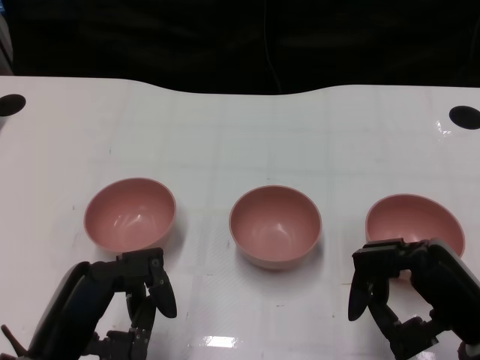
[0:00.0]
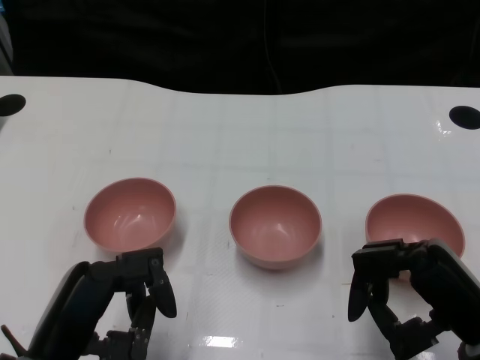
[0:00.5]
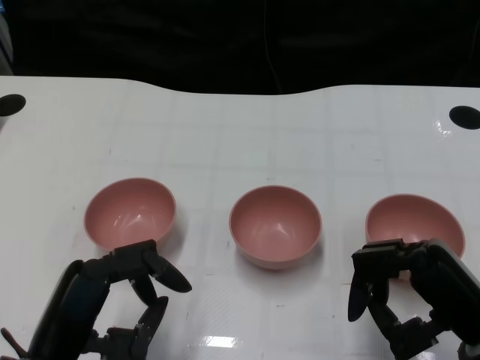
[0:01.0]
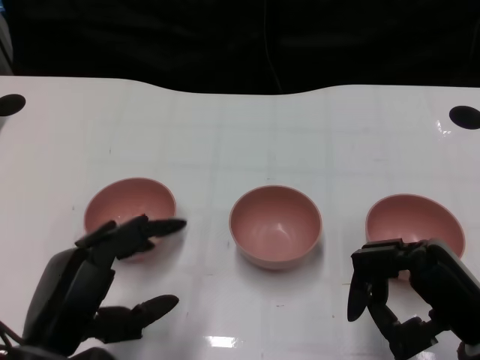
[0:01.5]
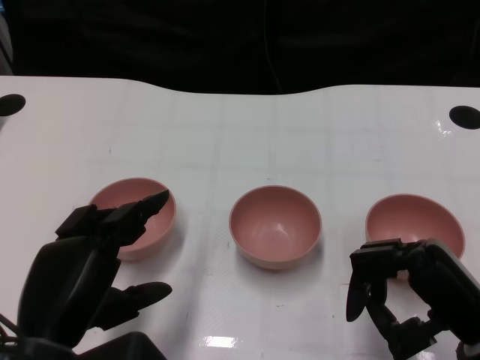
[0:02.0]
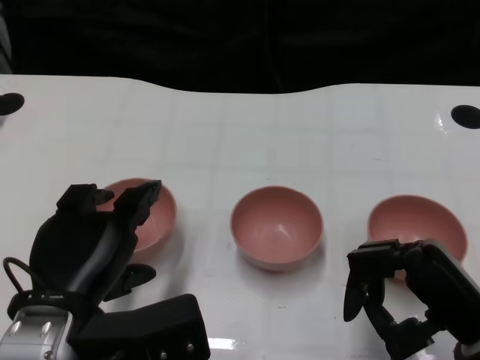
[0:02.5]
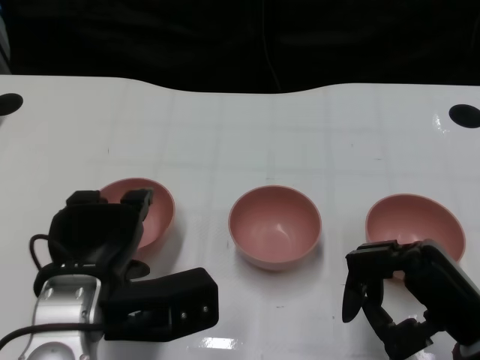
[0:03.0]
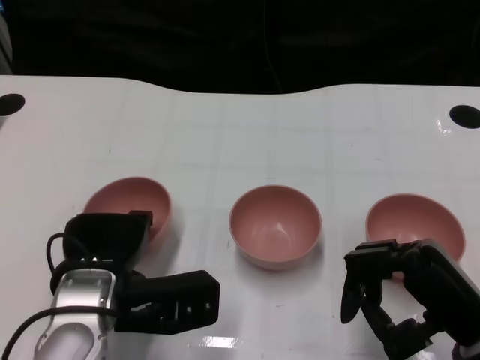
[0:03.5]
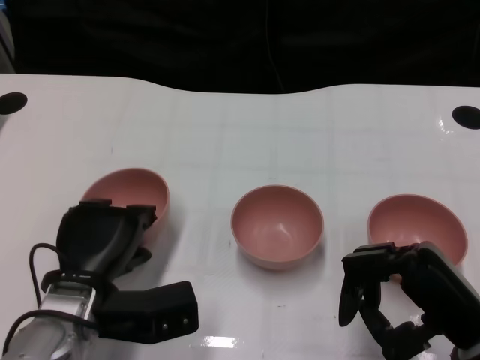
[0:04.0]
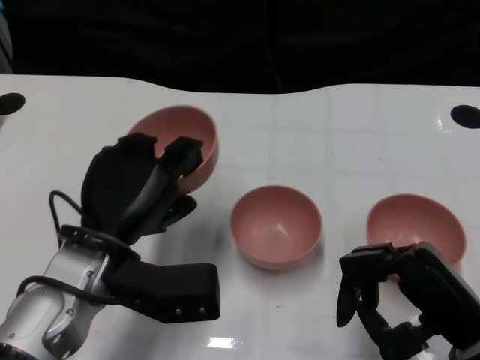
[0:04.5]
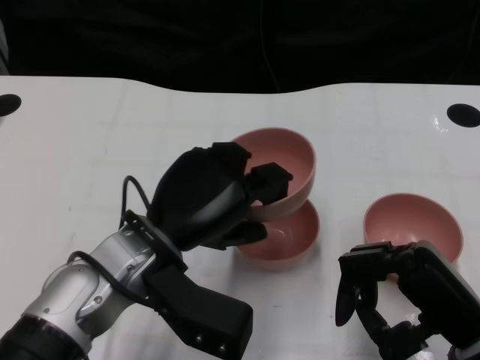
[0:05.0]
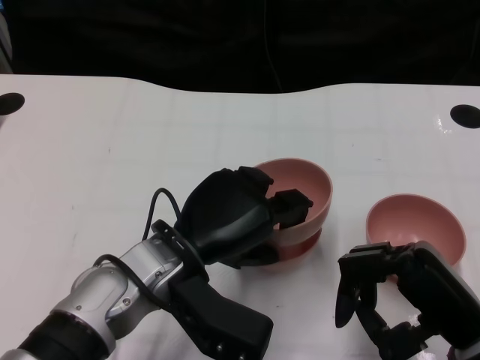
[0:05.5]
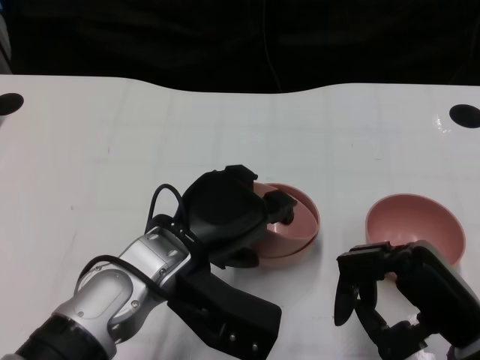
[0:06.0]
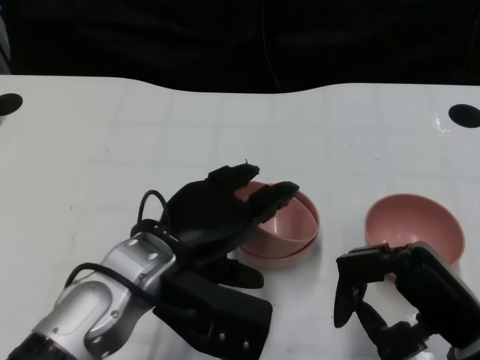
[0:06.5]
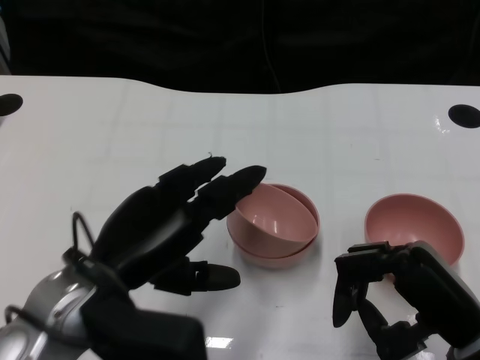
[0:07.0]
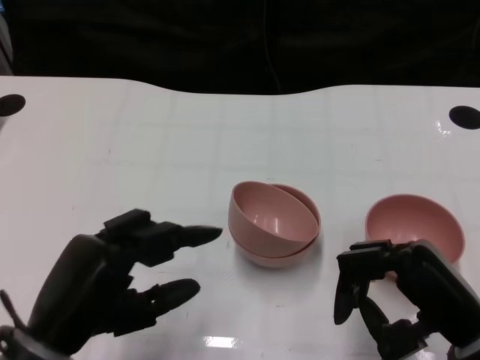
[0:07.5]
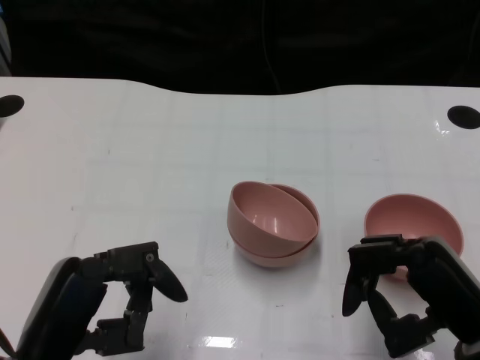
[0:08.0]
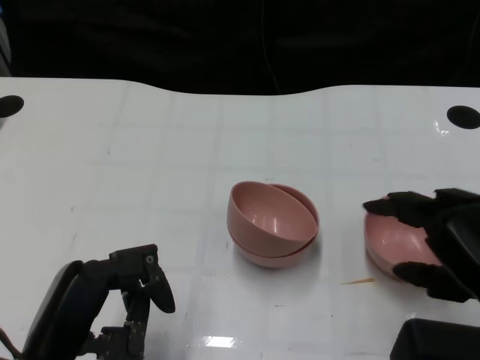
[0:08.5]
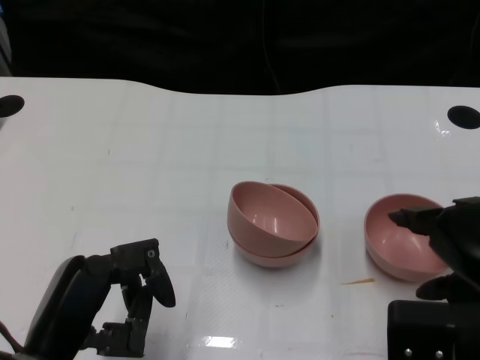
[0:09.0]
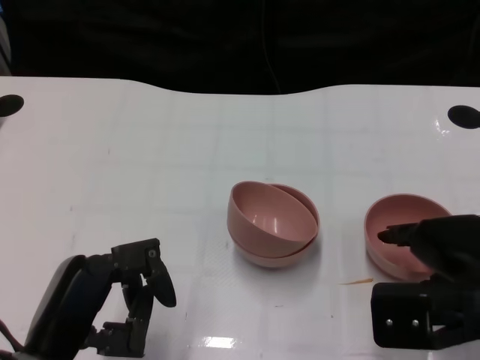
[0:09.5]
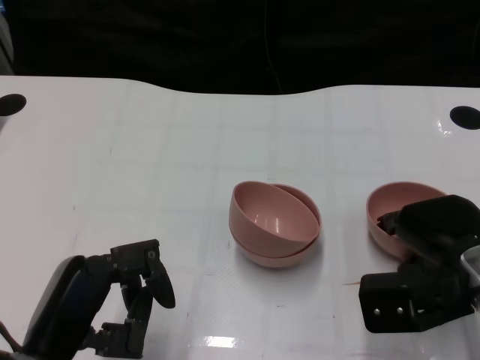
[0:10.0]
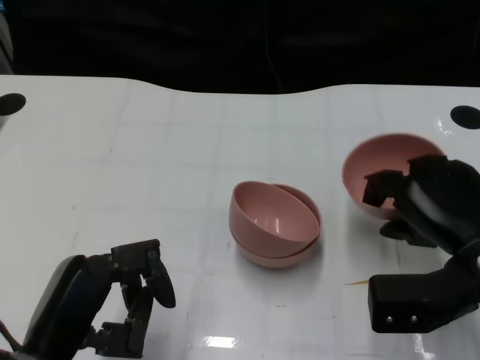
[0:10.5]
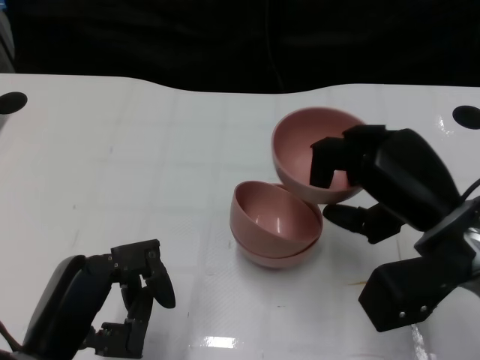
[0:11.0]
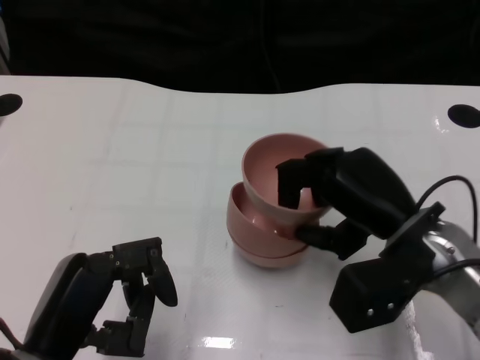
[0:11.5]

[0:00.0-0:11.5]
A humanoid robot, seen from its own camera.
Task of the whole recording: Pick up the bowl on one side of the table and place it on top of the middle bowl, then pick up the bowl on the other side of the table and place it on top of the middle bowls.
Step, 0:01.0 to 0:04.0: Grasp the bowl on the left with the left gripper.
Step, 0:04.5 to 0:06.5: Place the bowl on the left onto the bowl in the middle with left gripper.
Step, 0:07.0 to 0:10.0: Grasp the bowl on the right with the right gripper.
0:02.0 to 0:04.0: The left hand goes roughly 10 cm forward and downward.
0:04.0 to 0:06.0: The left hand travels to the right and upward by about 10 cm.
0:06.0 to 0:07.5: The left hand heads to the left and backward, covering roughly 15 cm.
0:07.5 to 0:09.5: The right hand shifts by about 5 cm.
0:09.5 to 0:11.5: The right hand heads to the left and forward, covering some 10 cm.

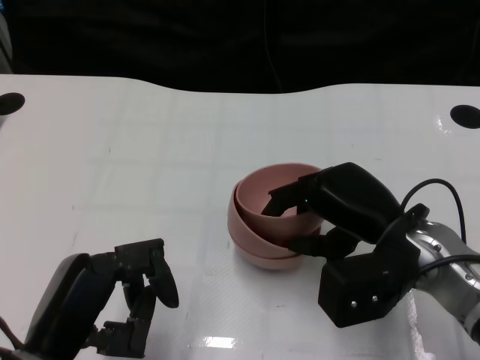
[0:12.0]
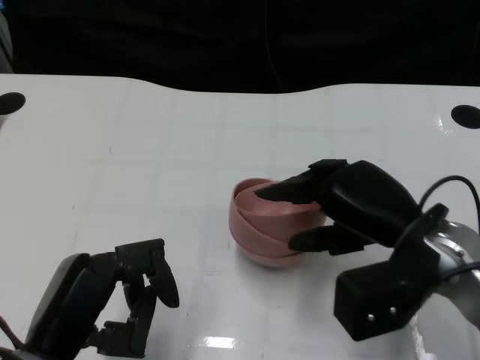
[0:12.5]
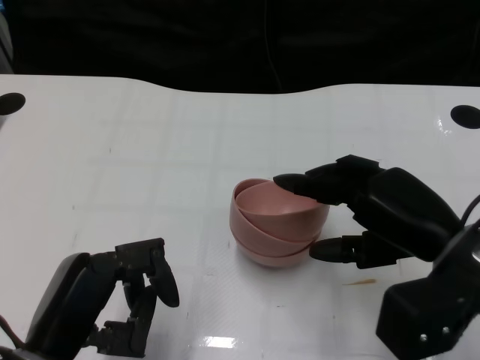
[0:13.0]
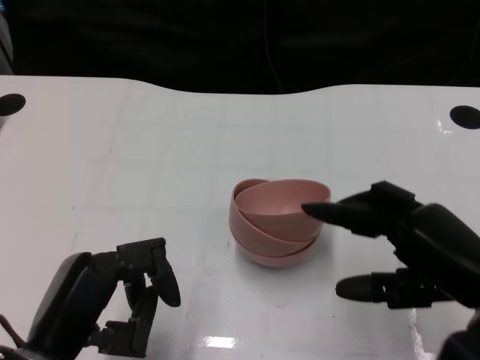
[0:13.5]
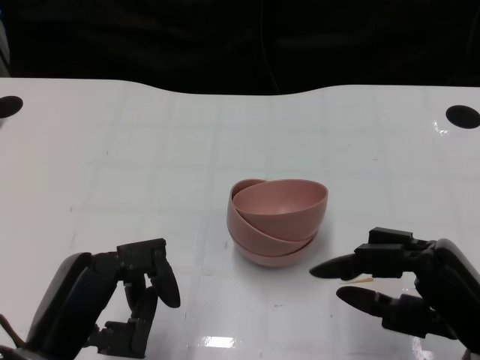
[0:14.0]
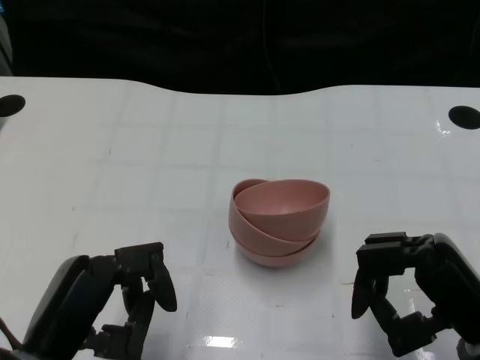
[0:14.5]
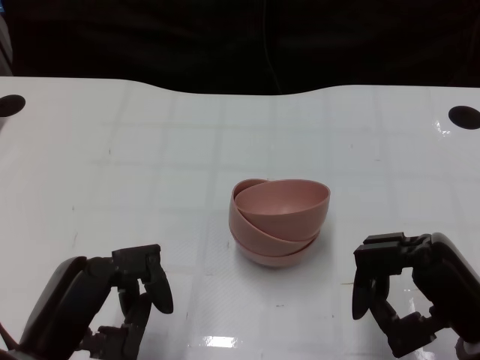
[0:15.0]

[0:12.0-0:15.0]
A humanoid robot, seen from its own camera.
Task of the whole recording: Pick up the bowl on one side of the table and place it on top of the middle bowl, then pick up the bowl on the other side of the table and place it on top of the middle bowls.
0:12.0 to 0:13.5: The right hand is displaced backward and to the right by roughly 10 cm.

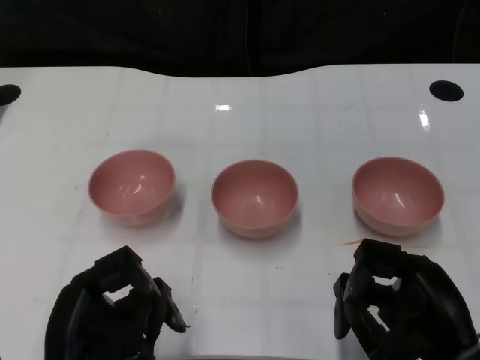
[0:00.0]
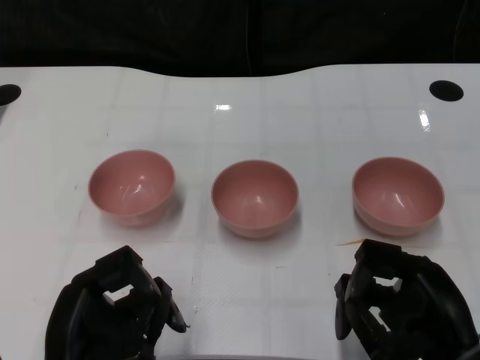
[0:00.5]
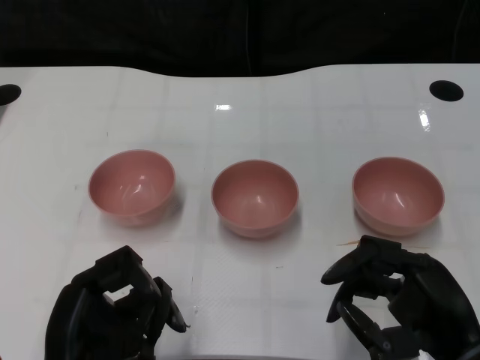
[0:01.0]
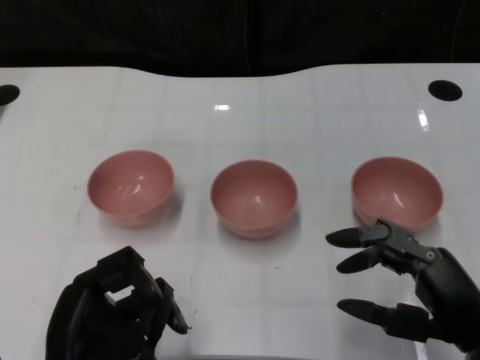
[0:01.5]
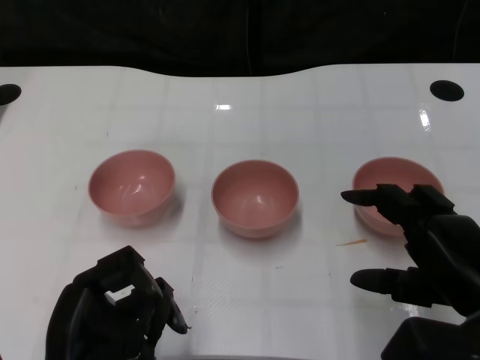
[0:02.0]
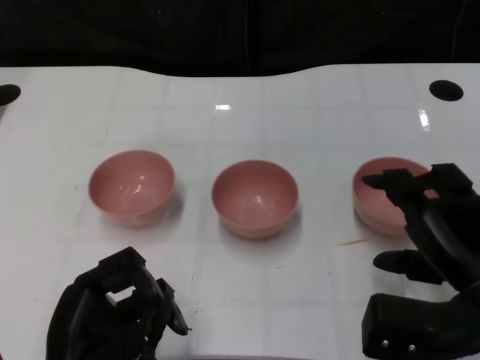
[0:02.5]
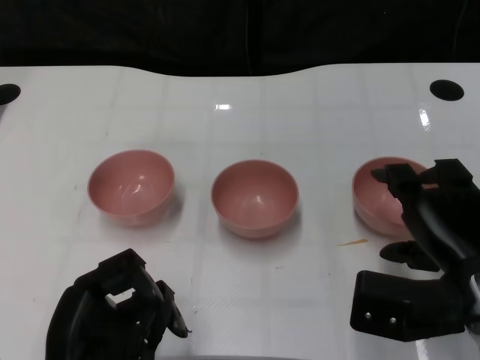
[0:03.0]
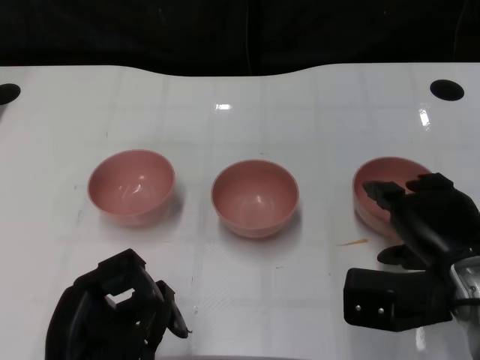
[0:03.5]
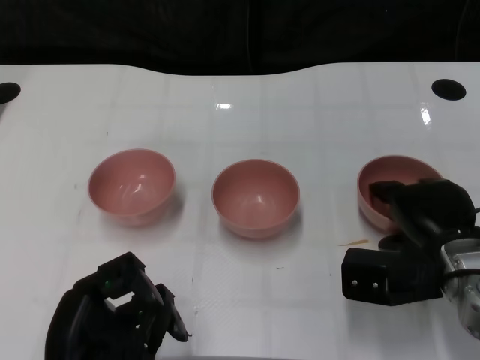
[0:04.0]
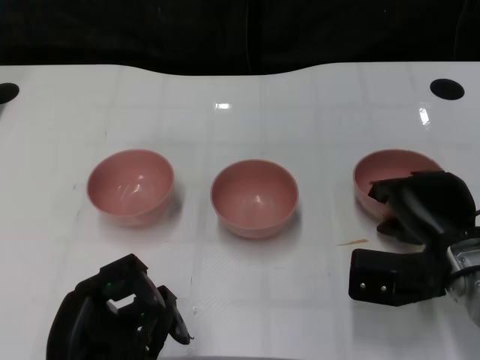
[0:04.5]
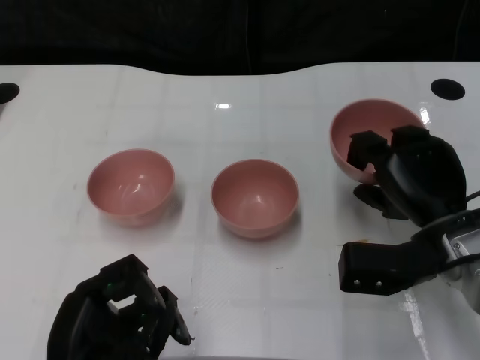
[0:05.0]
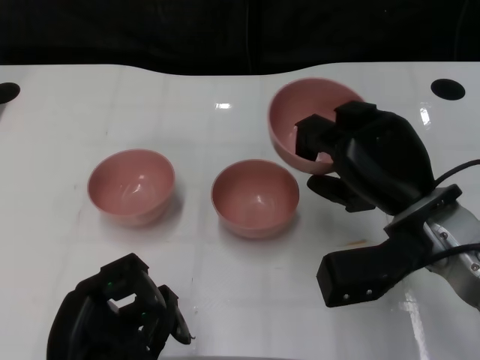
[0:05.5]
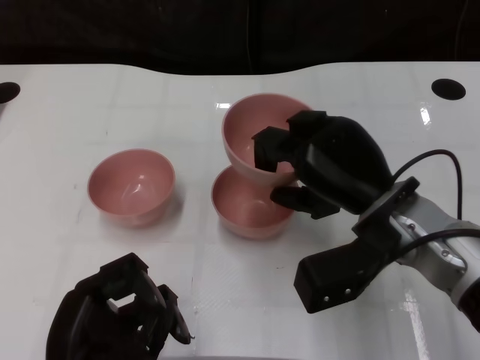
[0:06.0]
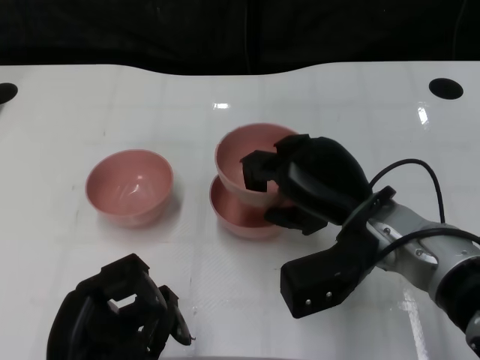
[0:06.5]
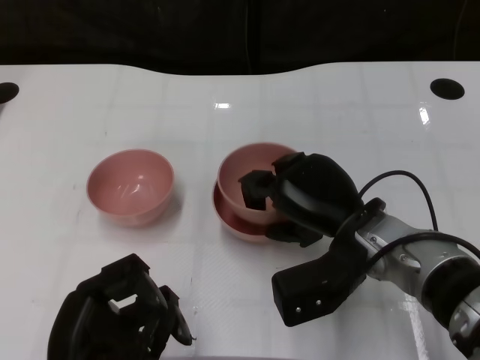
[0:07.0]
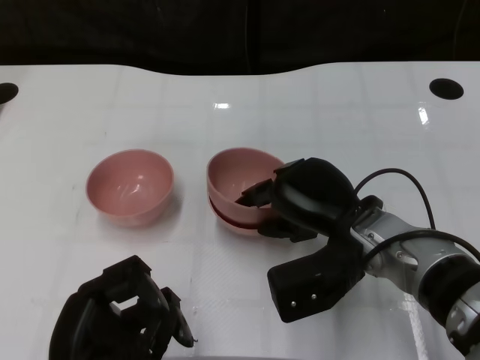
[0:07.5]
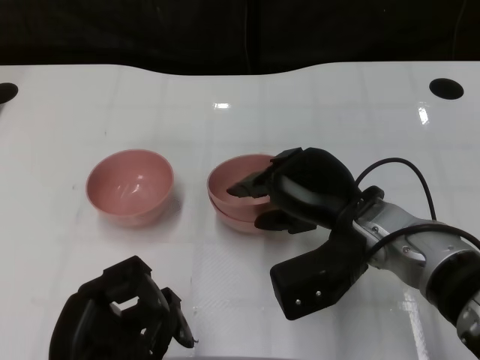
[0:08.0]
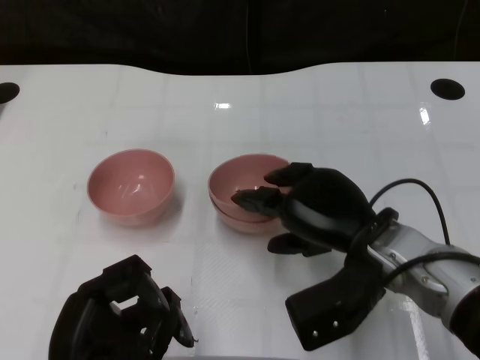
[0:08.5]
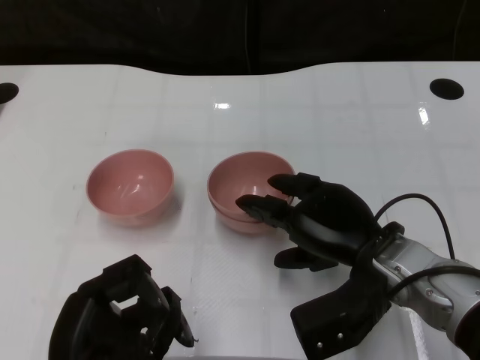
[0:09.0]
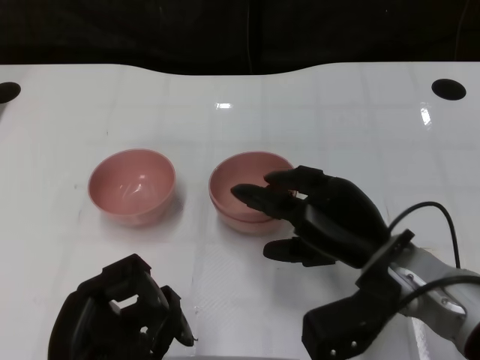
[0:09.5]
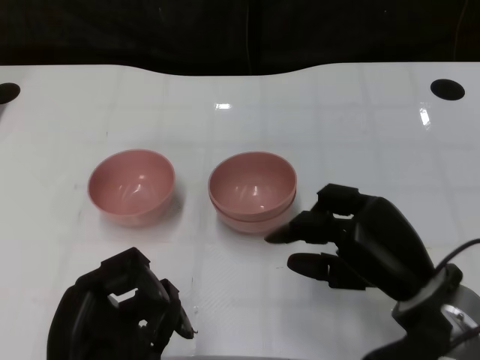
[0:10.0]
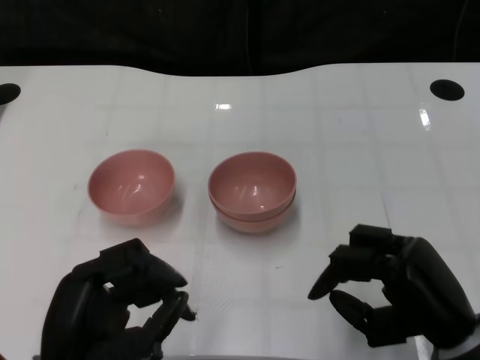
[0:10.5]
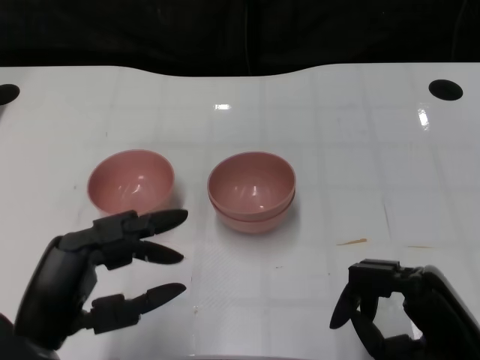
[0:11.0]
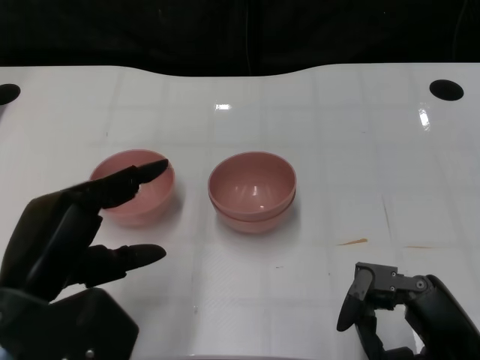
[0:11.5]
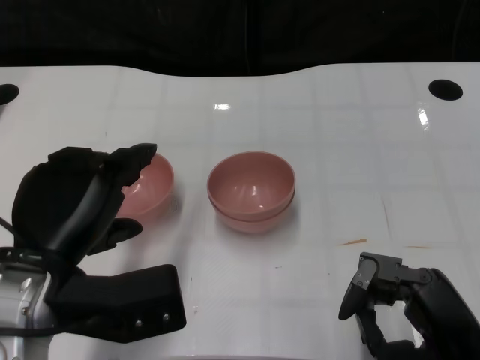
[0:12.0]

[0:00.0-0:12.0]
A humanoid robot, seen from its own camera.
Task of the whole recording: Pick up the bowl on one side of the table and place it on top of the middle bowl, then pick up the bowl on the other side of the table and place it on top of the middle bowls.
Step, 0:01.0 to 0:04.5: Grasp the bowl on the right with the right gripper.
Step, 0:05.0 to 0:09.5: Place the bowl on the right onto the bowl in the middle with right gripper.
0:02.0 to 0:04.0: The right hand moves forward, approximately 10 cm.
0:04.0 to 0:06.0: The right hand moves to the left and upward, some 10 cm.
0:08.0 to 0:10.0: The right hand travels backward and to the right by roughly 10 cm.
0:10.0 to 0:12.0: The left hand travels upward and forward by approximately 10 cm. Meanwhile the right hand travels backward by about 10 cm.
